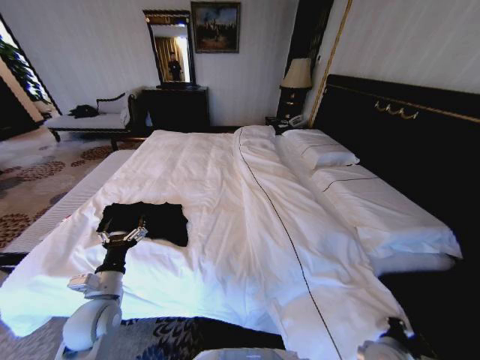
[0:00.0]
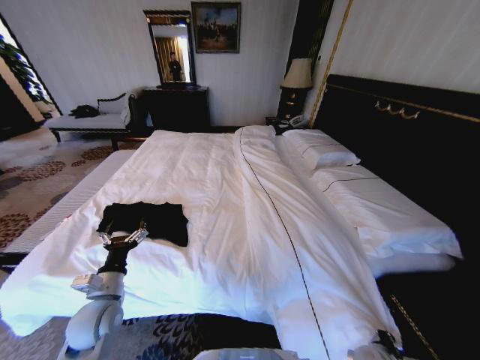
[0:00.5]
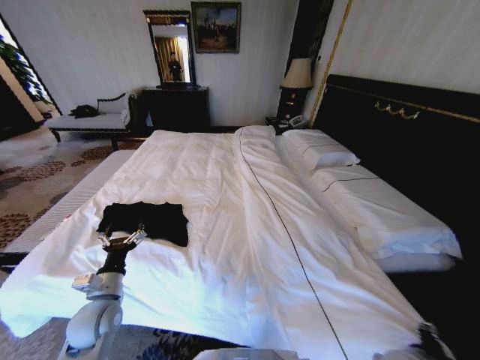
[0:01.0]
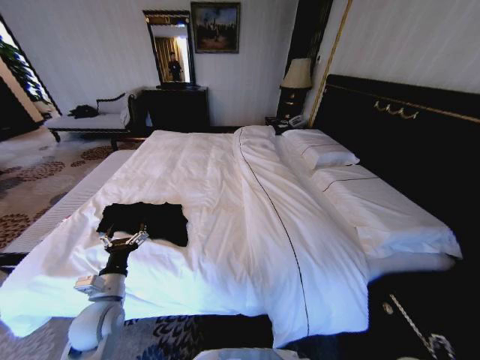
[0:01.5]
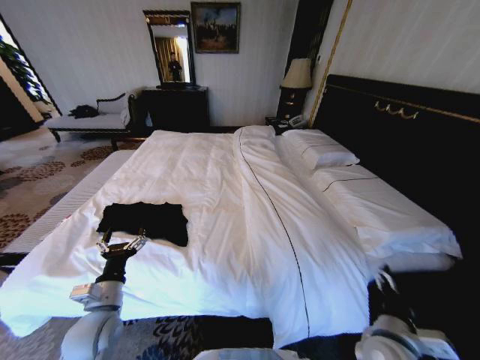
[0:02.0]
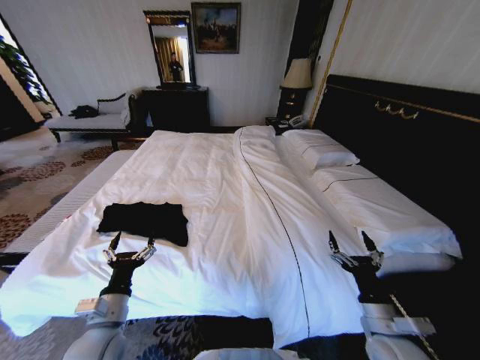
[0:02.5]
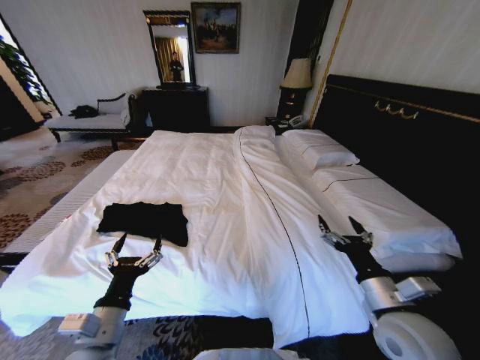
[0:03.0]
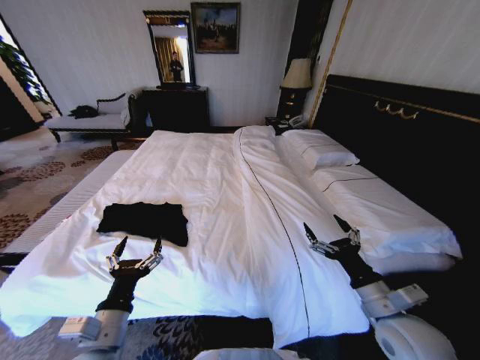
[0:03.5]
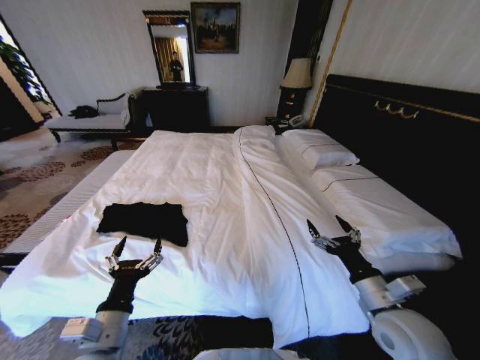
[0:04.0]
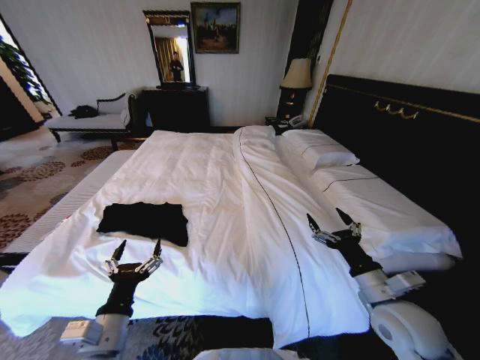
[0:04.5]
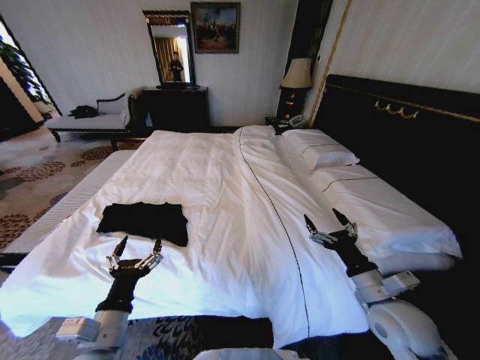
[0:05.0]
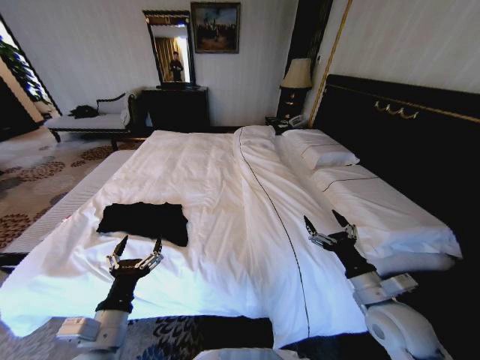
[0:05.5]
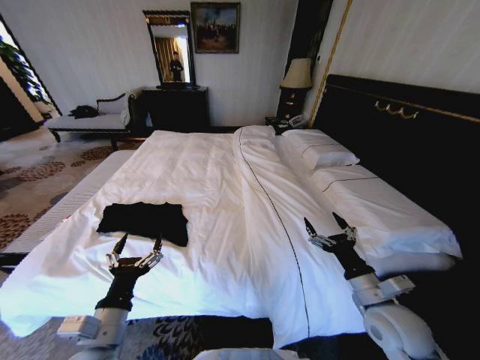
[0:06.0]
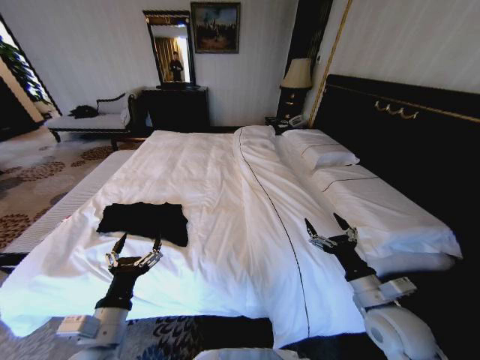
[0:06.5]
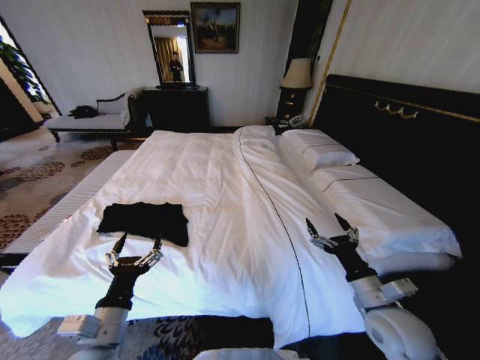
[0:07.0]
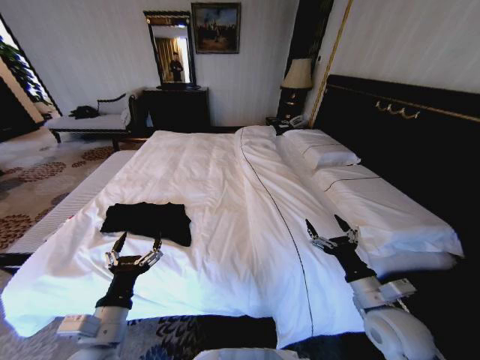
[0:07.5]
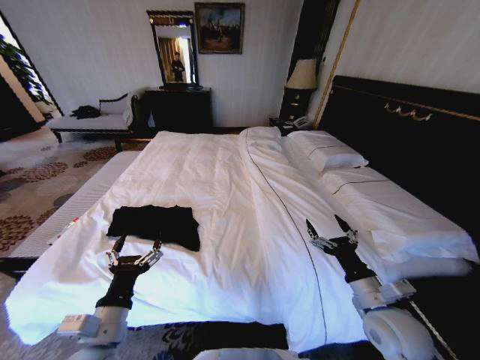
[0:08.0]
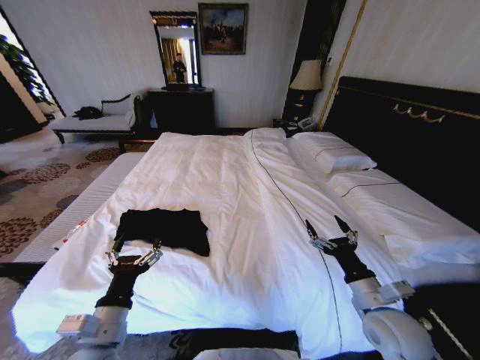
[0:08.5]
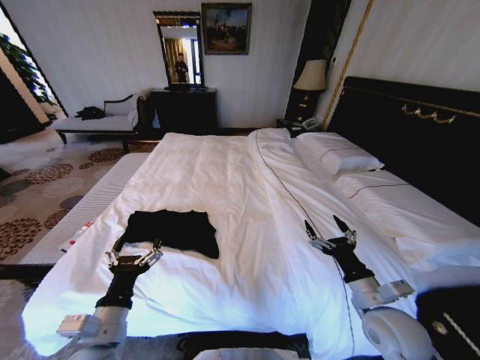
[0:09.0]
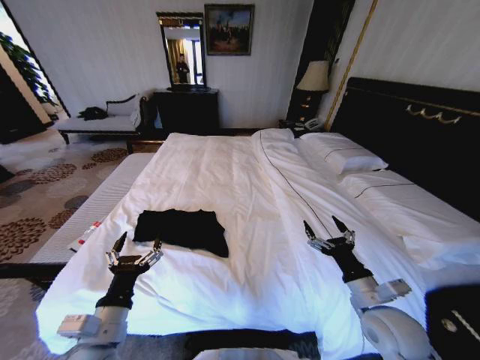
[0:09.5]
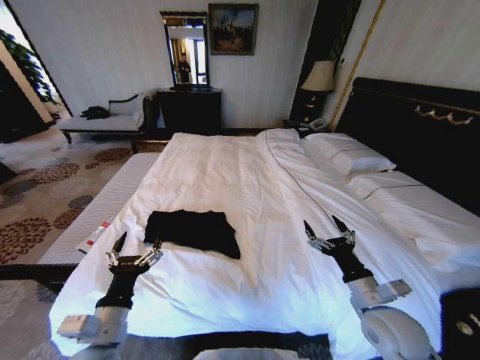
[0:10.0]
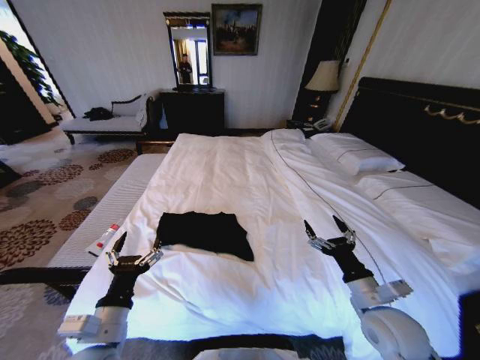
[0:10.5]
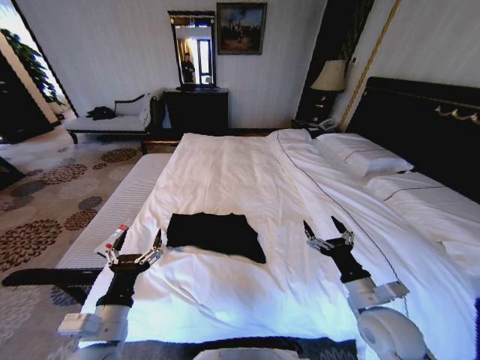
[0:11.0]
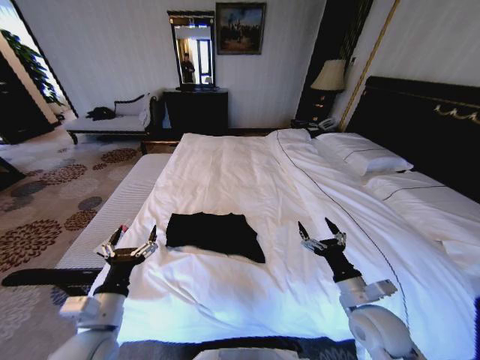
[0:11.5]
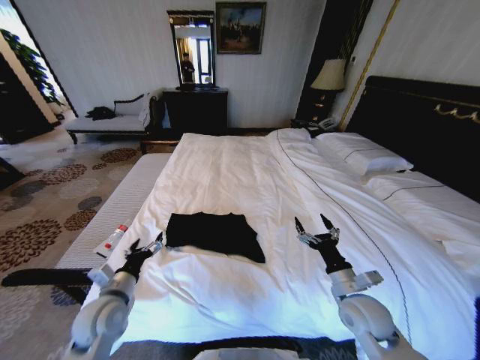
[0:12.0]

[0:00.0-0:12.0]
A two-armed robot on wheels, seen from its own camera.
Task of the whole recording: Fold the clothes on the bed.
0:00.0 to 0:02.0: The right gripper goes some 5 cm upward, and opens up.
0:02.0 to 0:04.0: The left gripper goes approximately 10 cm backward and to the right. Meanwhile the right gripper travels upward by roughly 10 cm.
0:04.0 to 0:06.0: There are only small adjustments of the grippers.
0:06.0 to 0:08.0: Neither gripper changes place.
0:10.0 to 0:12.0: The right gripper shifts by approximately 5 cm. Meanwhile the left gripper moves forward and to the left, approximately 10 cm.

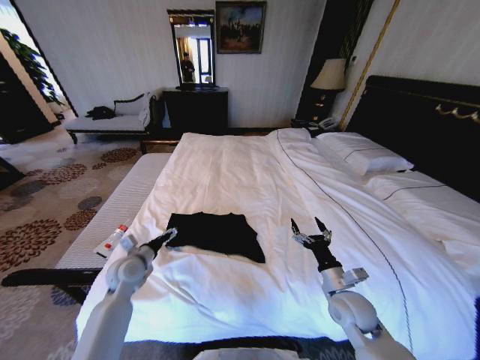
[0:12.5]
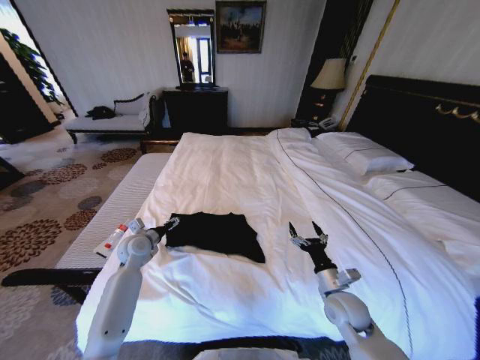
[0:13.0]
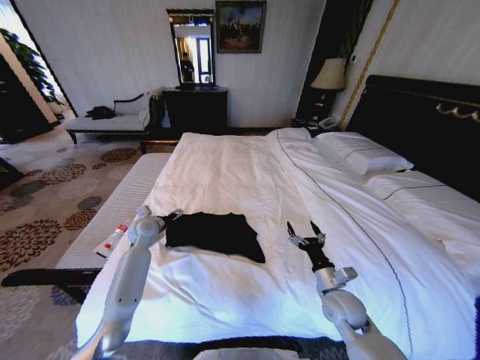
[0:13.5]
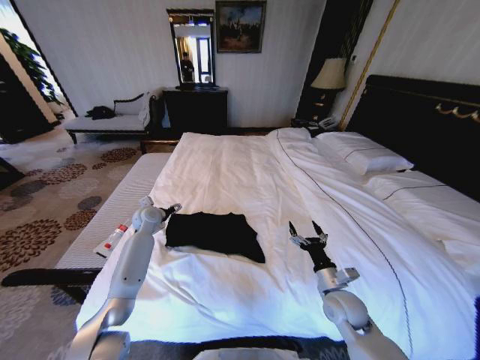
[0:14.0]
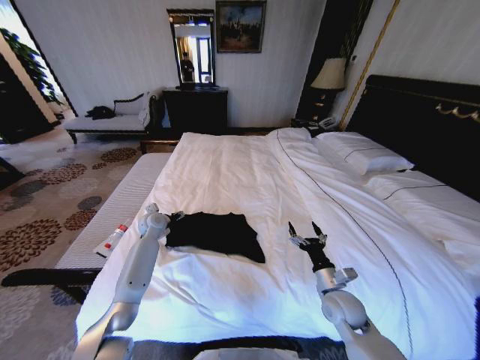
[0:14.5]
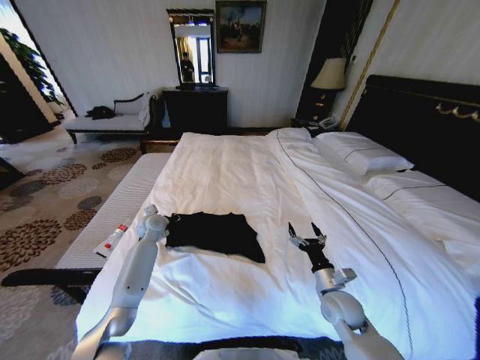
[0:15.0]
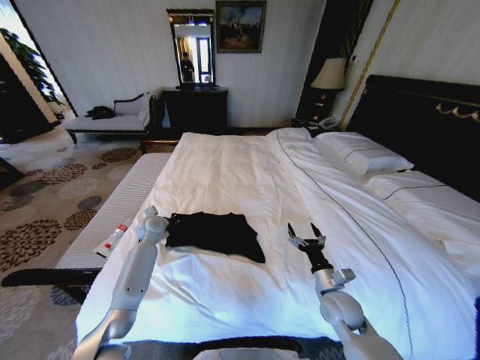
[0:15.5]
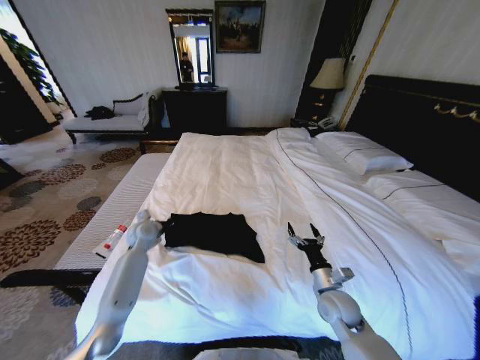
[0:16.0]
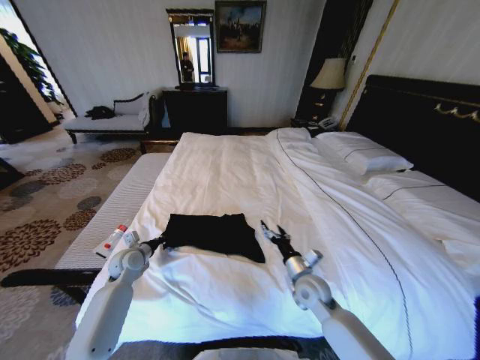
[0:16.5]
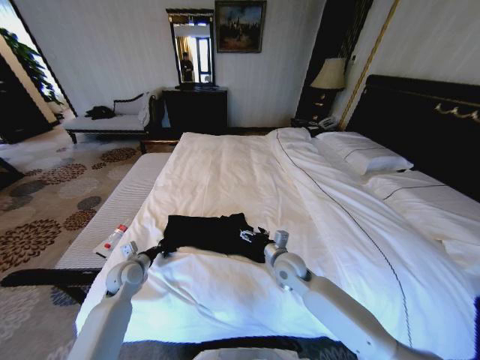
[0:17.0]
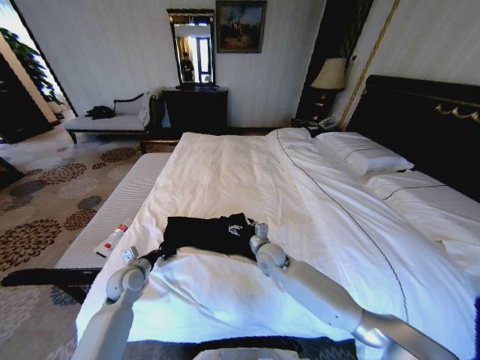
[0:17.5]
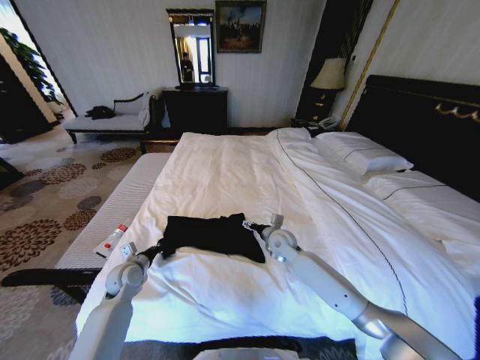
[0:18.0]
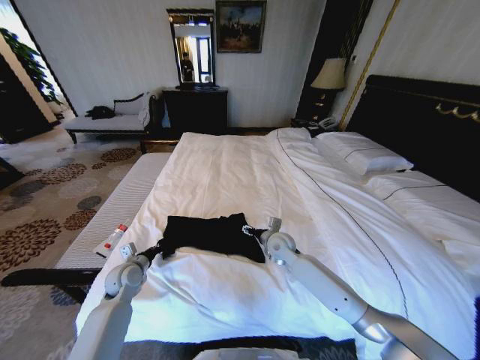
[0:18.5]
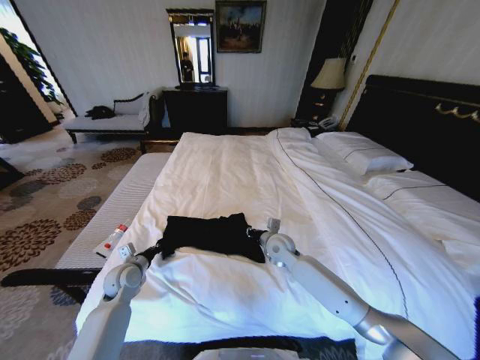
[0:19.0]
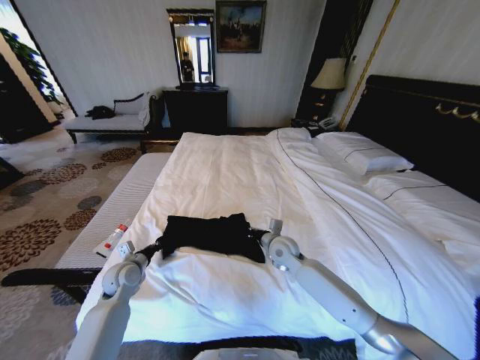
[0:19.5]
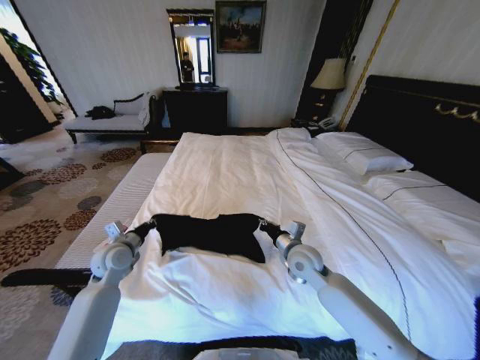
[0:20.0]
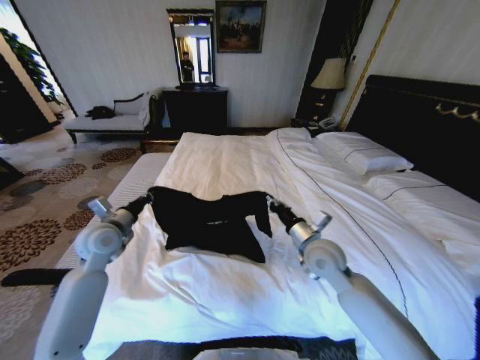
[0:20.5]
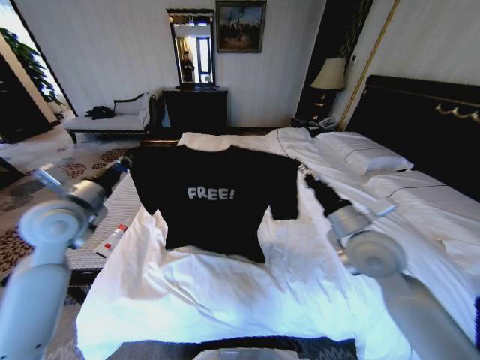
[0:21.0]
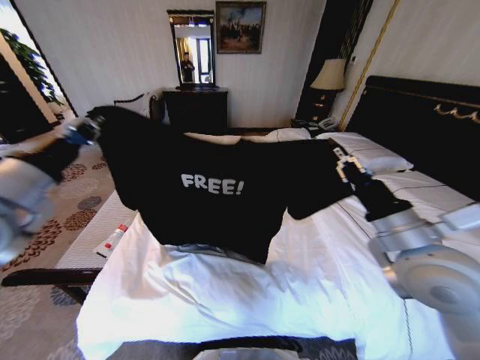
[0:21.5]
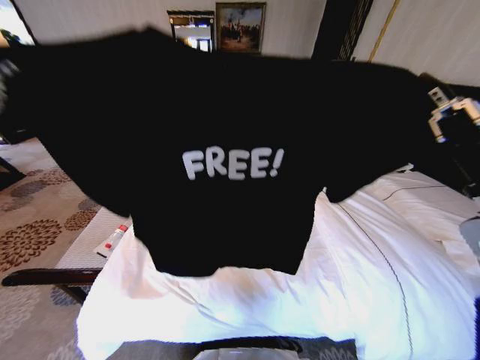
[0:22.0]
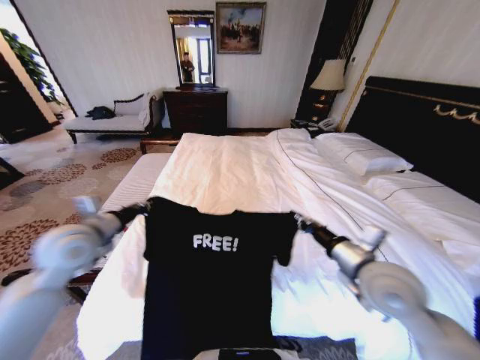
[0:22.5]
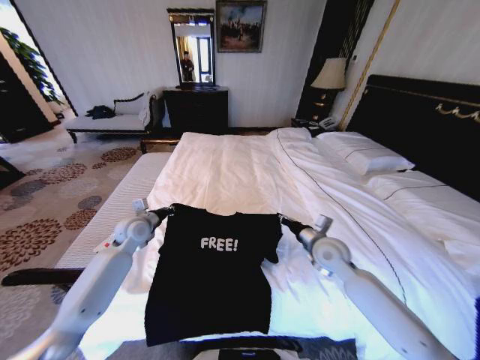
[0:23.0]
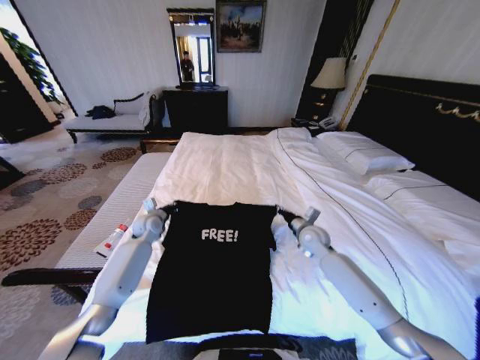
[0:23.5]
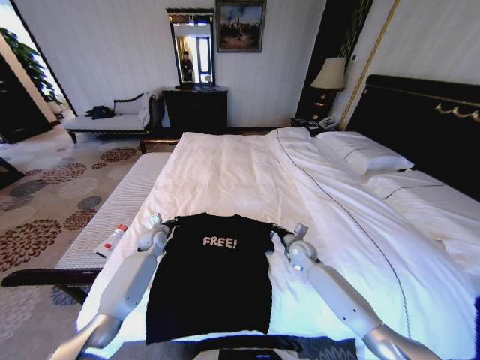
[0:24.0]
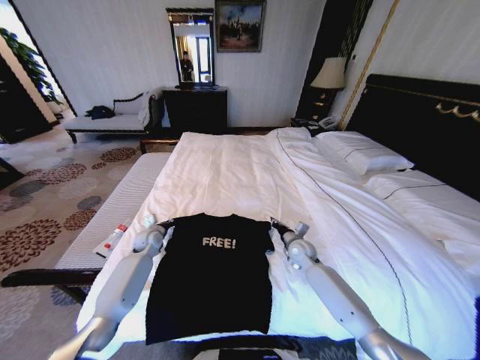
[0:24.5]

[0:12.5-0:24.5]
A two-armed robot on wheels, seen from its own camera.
Task of the whole recording: Fold the clothes on the bed.
0:12.5 to 0:14.5: The left gripper heads forward, covering roughly 15 cm.
0:14.5 to 0:16.5: The left gripper heads backward, covering about 15 cm, and closes its fingers, while the right gripper goes roughly 5 cm to the left.
0:16.5 to 0:18.5: The right gripper heads forward and to the left, covering roughly 15 cm.
0:18.5 to 0:20.5: The left gripper heads upward, covering approximately 15 cm. Meanwhile the right gripper goes roughly 15 cm upward, backward and to the right, and closes.
0:20.5 to 0:22.5: The left gripper heads backward, covering roughly 5 cm, and reaches roughly 25 cm upward, then returns; the right gripper travels backward and to the right by roughly 10 cm, and moves some 20 cm upward and comes back.
0:22.5 to 0:24.5: Both grippers travel together downward and forward, roughly 30 cm.

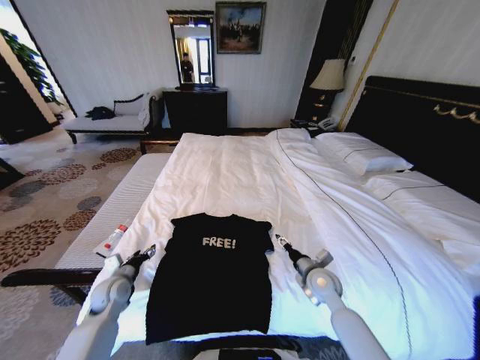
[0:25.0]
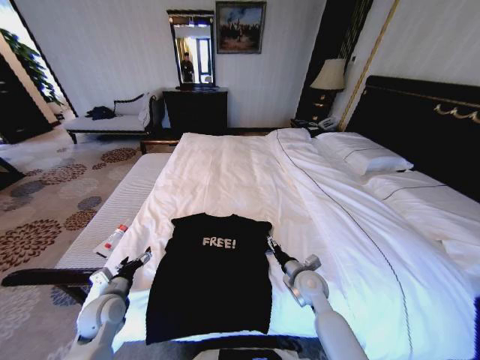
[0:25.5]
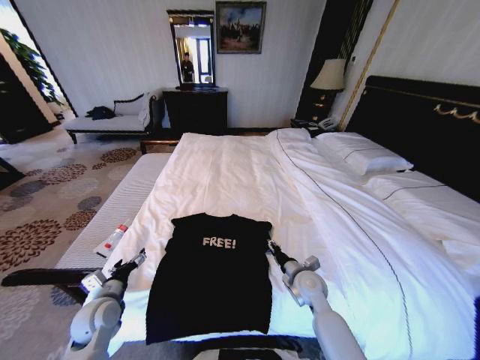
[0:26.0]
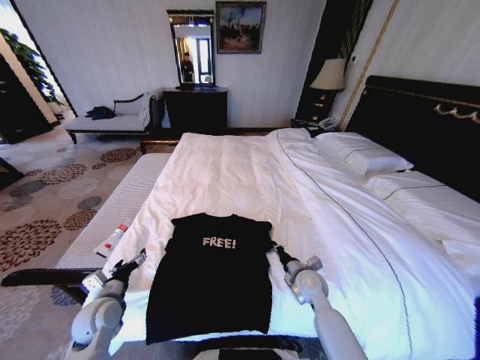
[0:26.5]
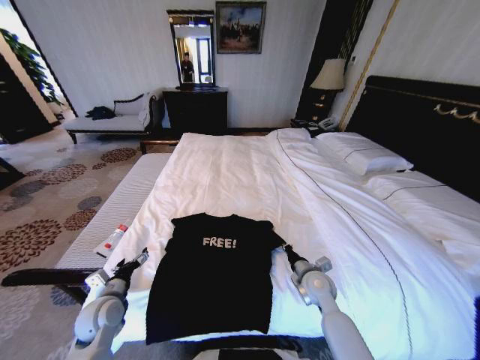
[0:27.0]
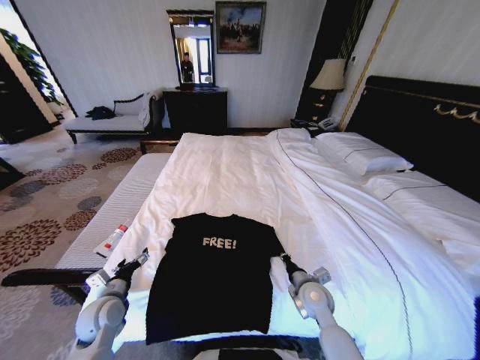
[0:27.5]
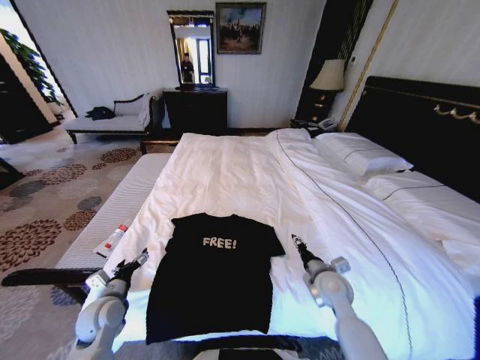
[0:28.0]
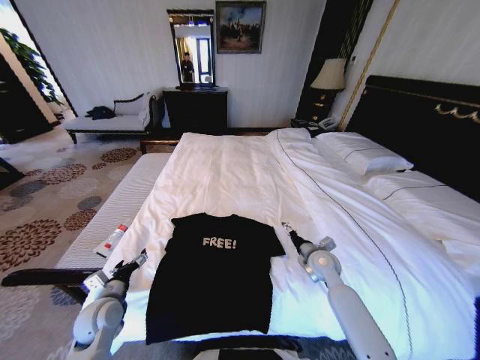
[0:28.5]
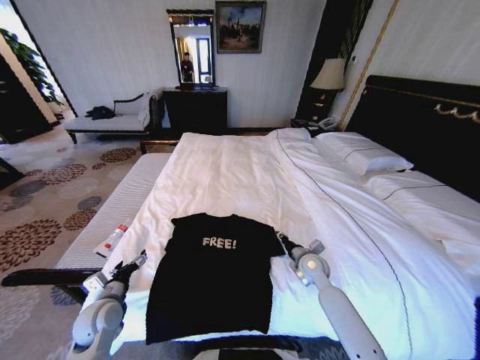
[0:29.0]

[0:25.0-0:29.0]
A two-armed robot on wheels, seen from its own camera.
Task of the whole recording: Fold the clothes on the bed.
0:25.0 to 0:27.0: The right gripper closes up. Meanwhile the left gripper goes some 5 cm backward.
0:27.0 to 0:29.0: The right gripper heads forward, covering about 5 cm, and opens its fingers.
